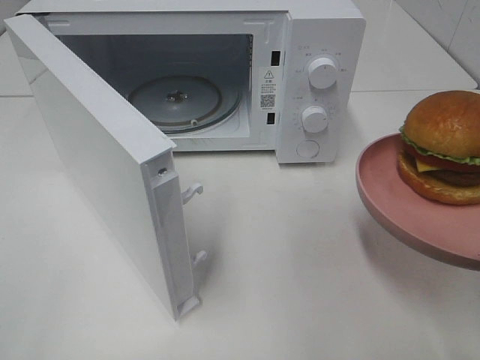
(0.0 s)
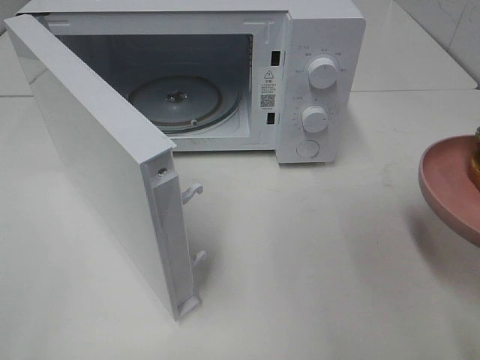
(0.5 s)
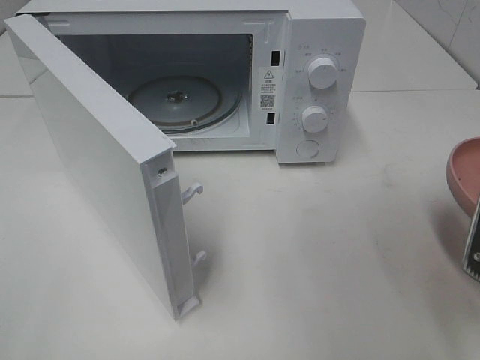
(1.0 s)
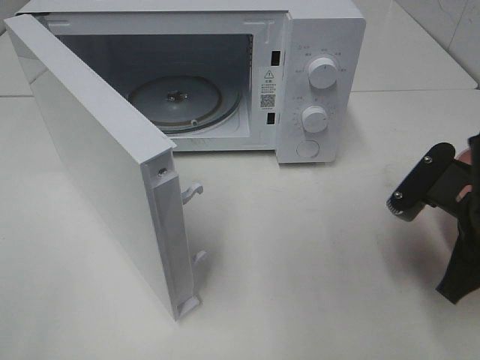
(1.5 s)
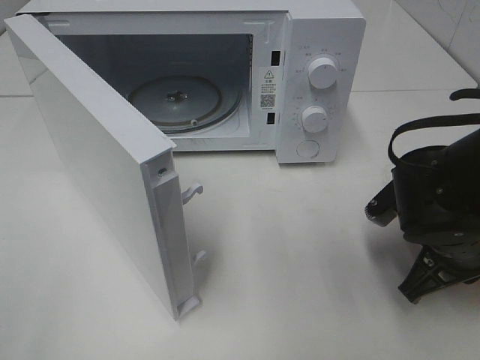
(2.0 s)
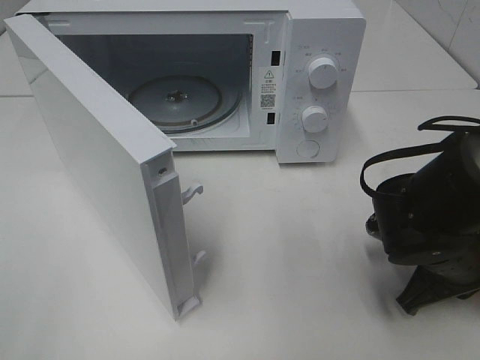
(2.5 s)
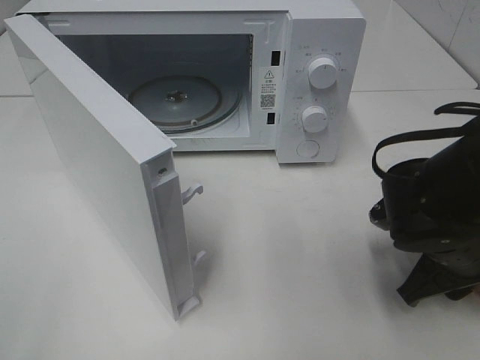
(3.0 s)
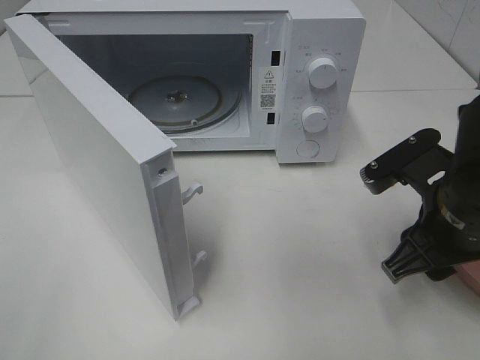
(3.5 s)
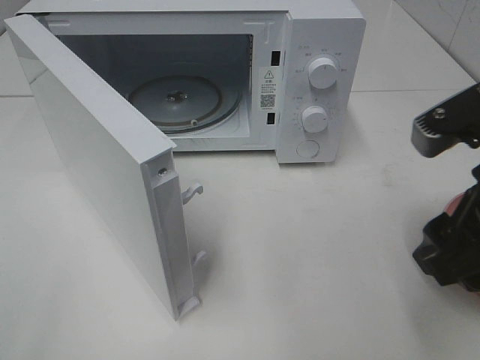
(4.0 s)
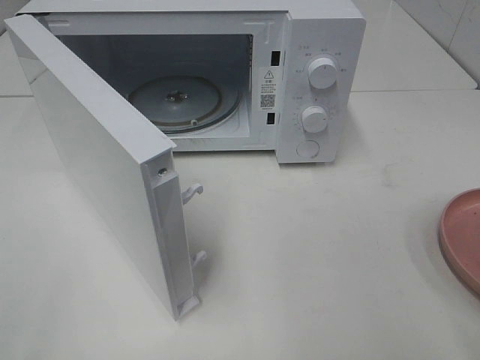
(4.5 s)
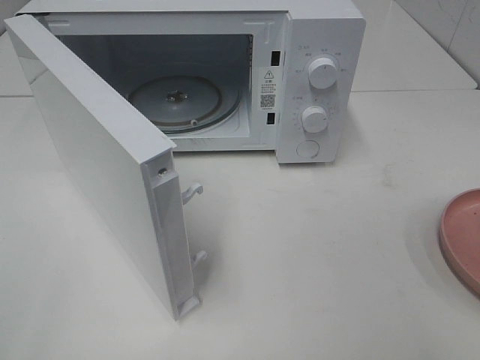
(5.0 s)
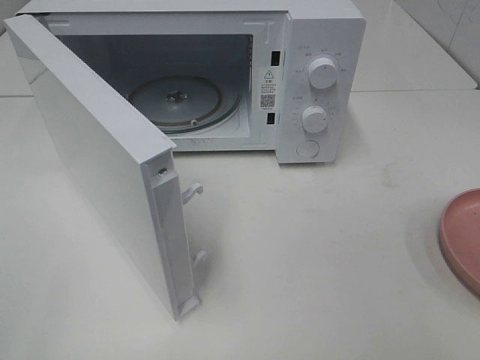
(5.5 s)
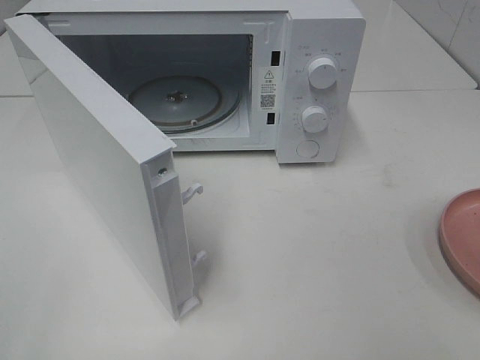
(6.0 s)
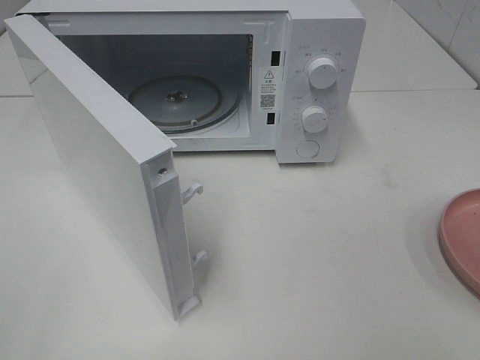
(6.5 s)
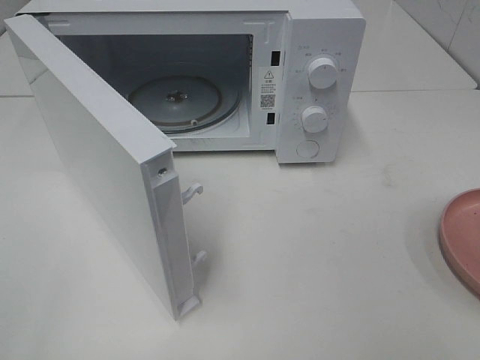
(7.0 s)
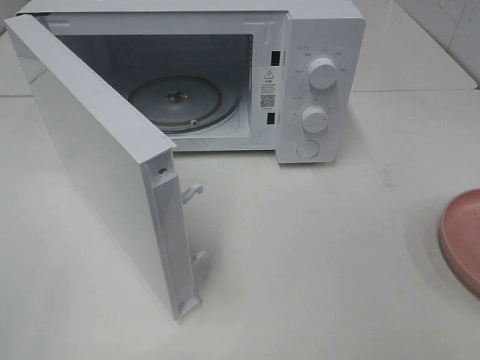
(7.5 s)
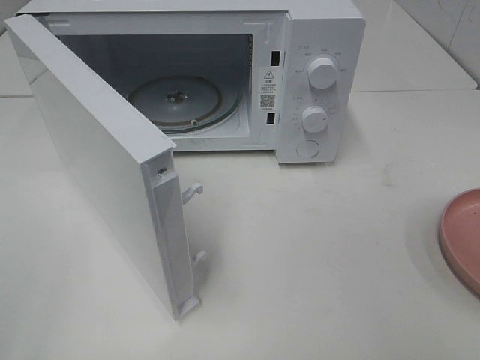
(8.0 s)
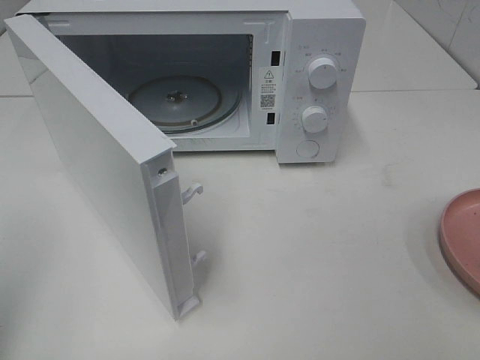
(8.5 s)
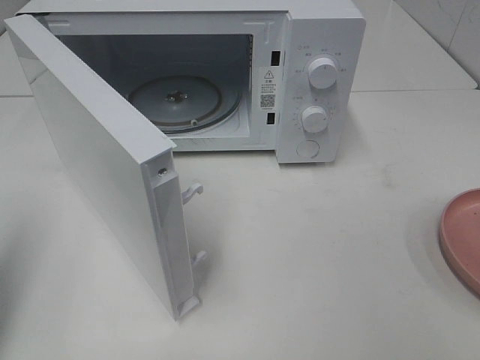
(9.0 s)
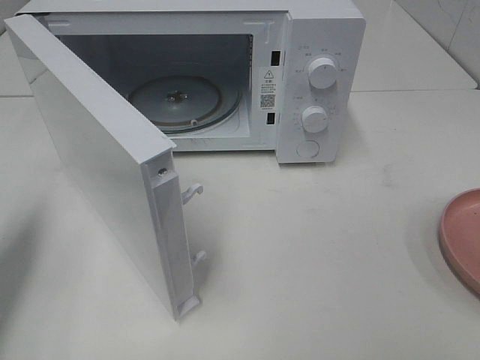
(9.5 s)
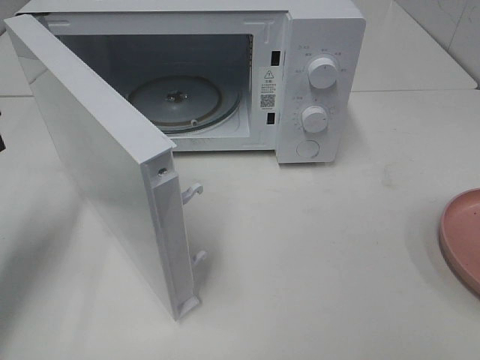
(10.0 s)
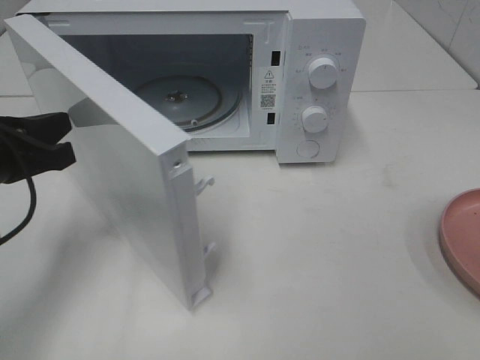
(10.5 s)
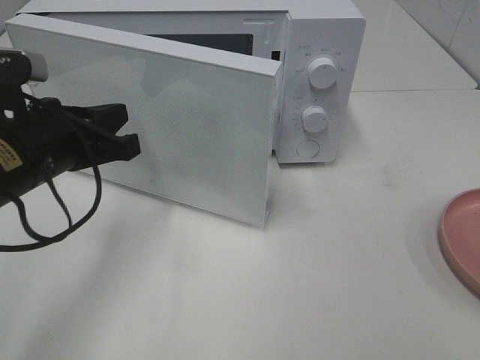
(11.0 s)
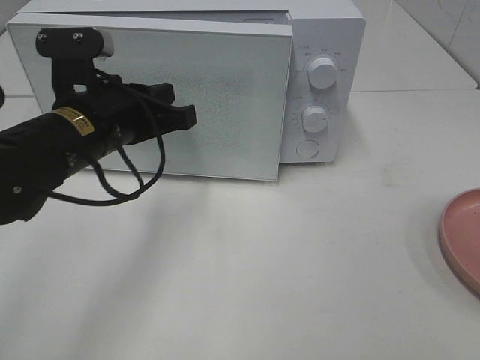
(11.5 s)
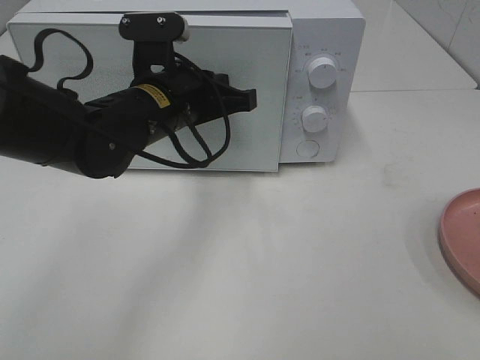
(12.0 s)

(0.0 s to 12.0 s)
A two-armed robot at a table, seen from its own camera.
Task of the whole recording: Heat the burger.
Step, 0.0 s - 3.0 s: Right hand: place the plate on the table.
0.0 s - 2.0 s: The right gripper moves forward and downward, about 15 cm.
2.0 s - 4.0 s: The right gripper shifts about 15 cm upward and backward, and opens.
4.0 s - 6.0 s: The right gripper moves backward and to the right, approximately 20 cm.
8.0 s - 10.0 s: The left gripper moves forward and downward, roughly 25 cm, and closes up.
10.0 s - 12.0 s: The left gripper goes about 25 cm to the right and forward.

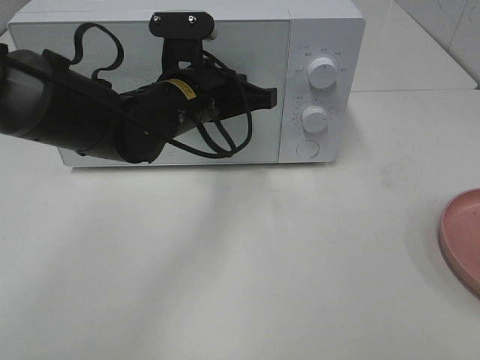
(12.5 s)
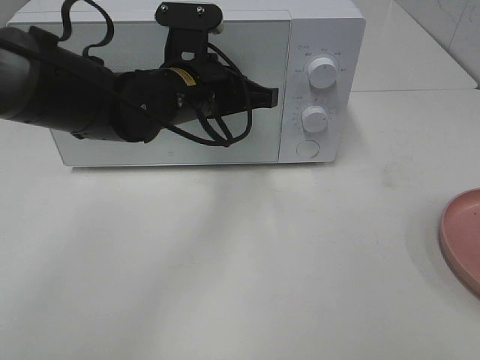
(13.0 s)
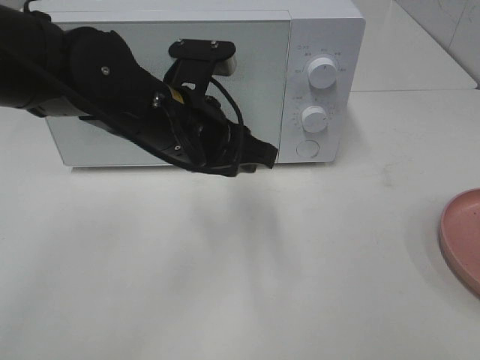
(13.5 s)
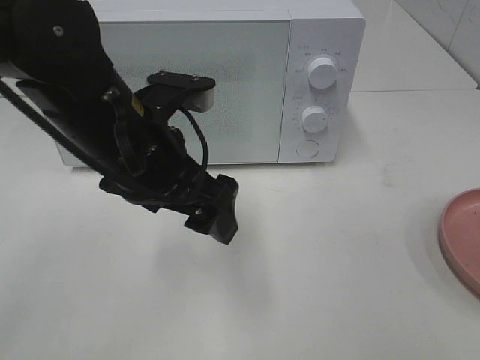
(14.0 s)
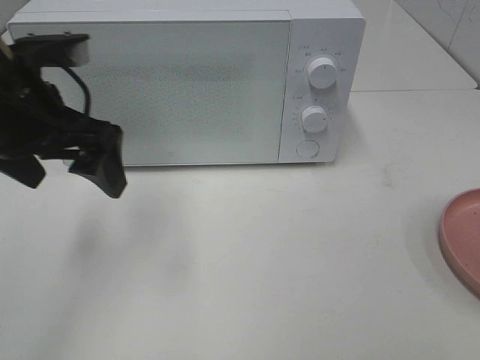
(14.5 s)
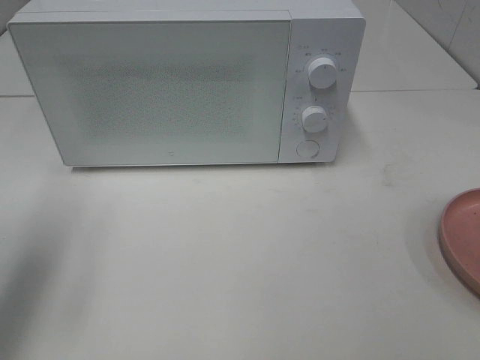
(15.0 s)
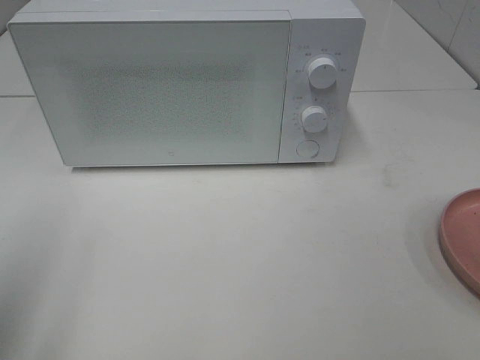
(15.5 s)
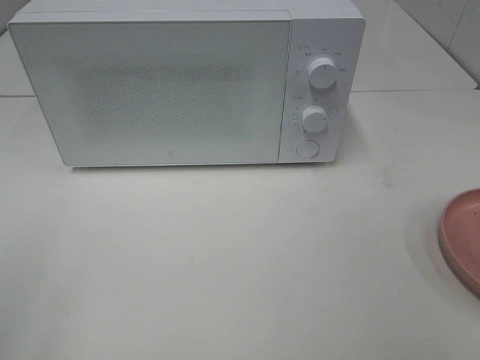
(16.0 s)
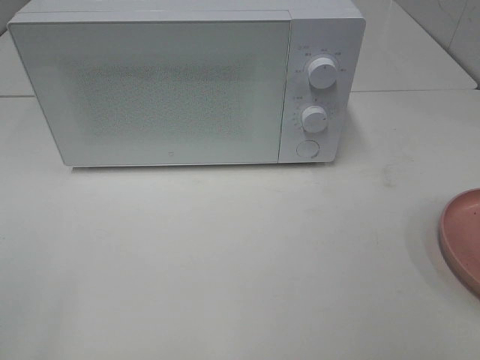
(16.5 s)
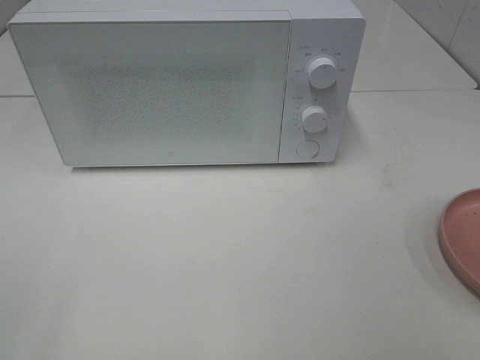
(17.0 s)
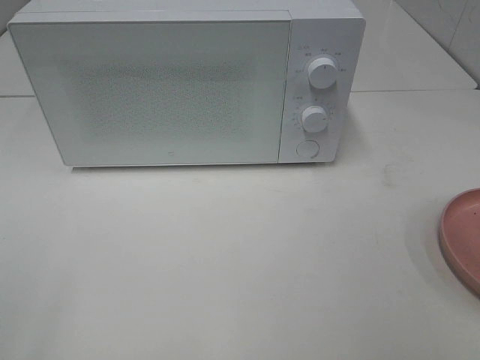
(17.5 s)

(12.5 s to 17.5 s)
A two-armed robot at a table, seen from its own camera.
Task of the whole recording: Heat the burger.
12.5 s - 15.0 s: The left gripper heads to the left and backward, covering about 30 cm, and opens its fingers.
15.0 s - 17.5 s: The left gripper moves backward, approximately 20 cm.

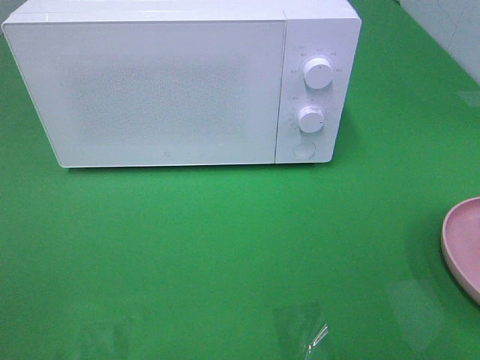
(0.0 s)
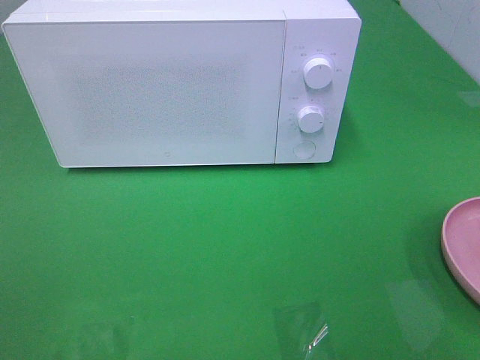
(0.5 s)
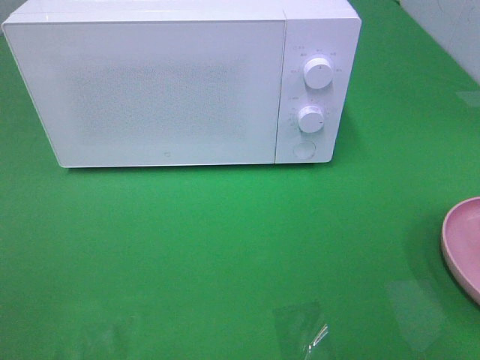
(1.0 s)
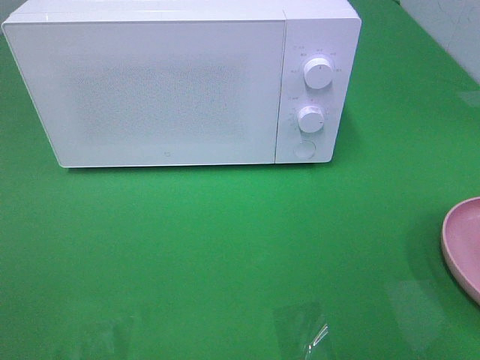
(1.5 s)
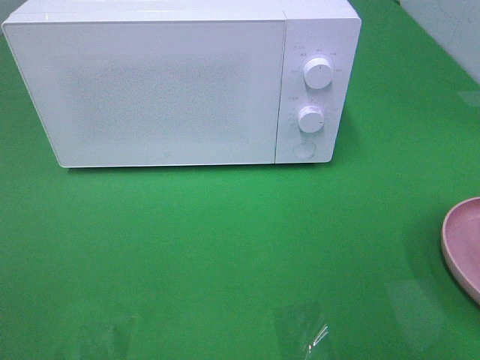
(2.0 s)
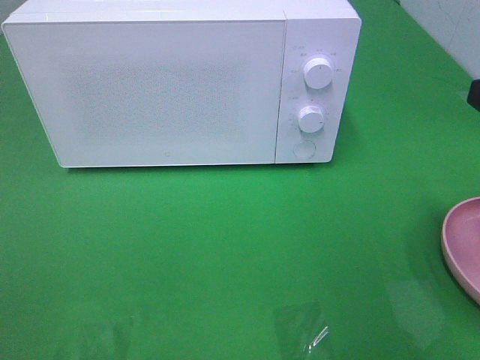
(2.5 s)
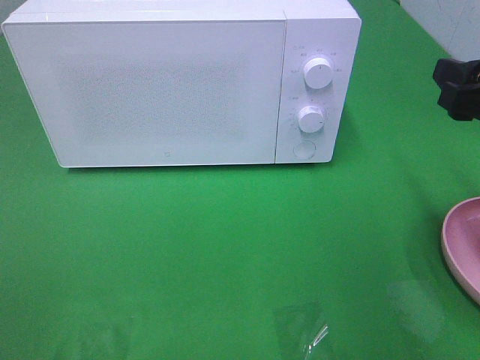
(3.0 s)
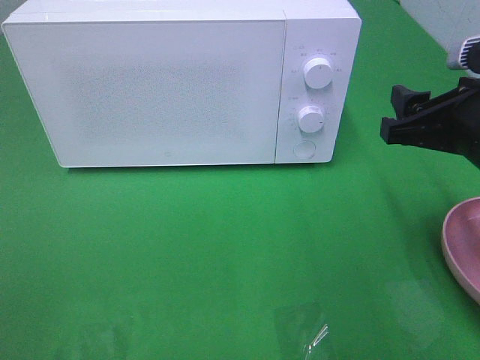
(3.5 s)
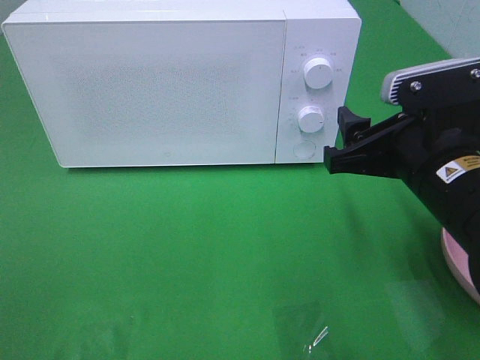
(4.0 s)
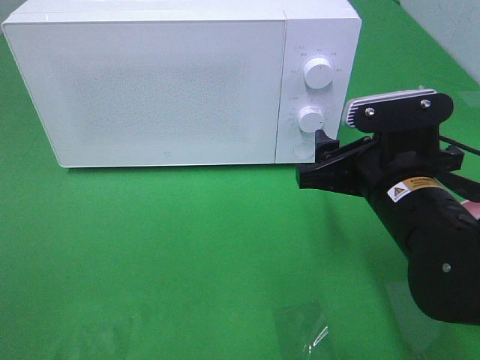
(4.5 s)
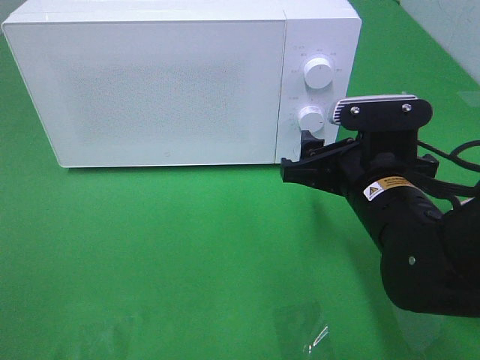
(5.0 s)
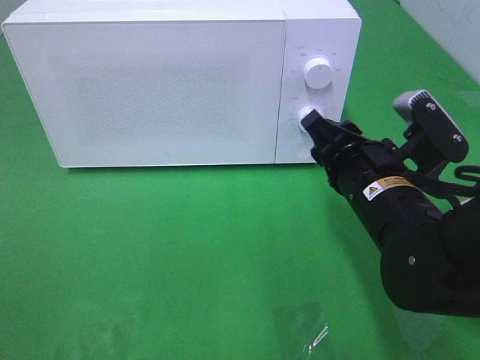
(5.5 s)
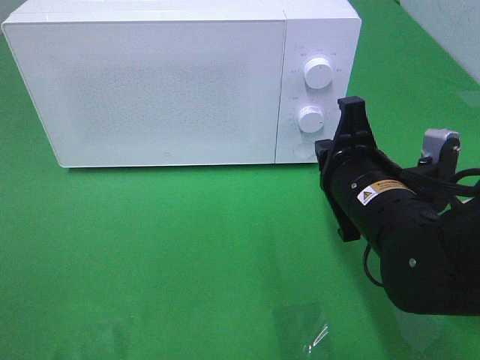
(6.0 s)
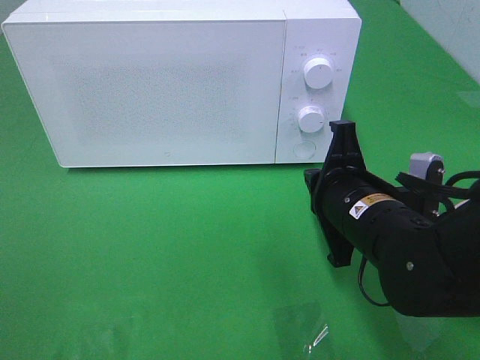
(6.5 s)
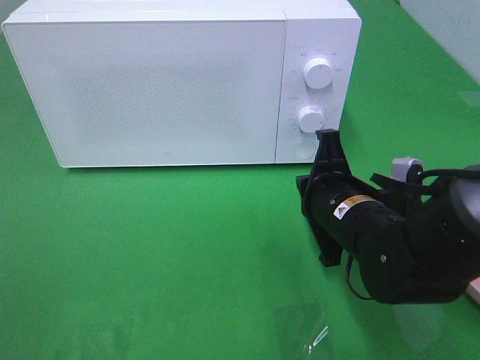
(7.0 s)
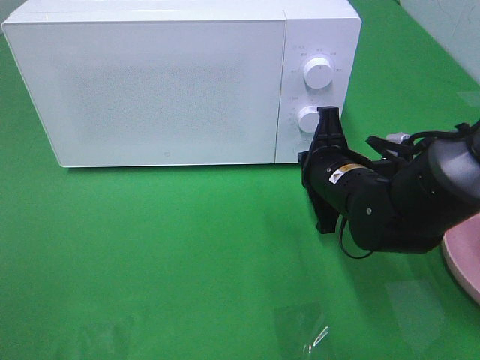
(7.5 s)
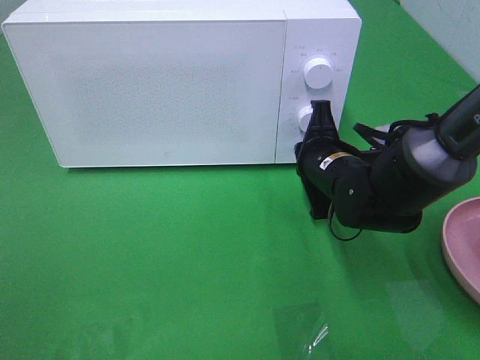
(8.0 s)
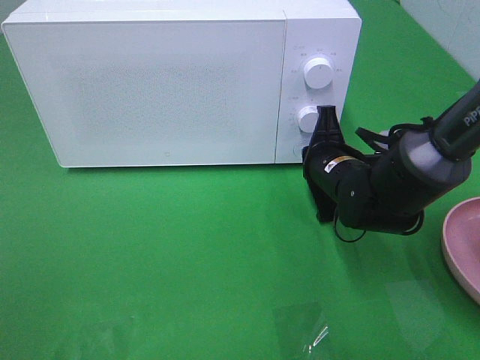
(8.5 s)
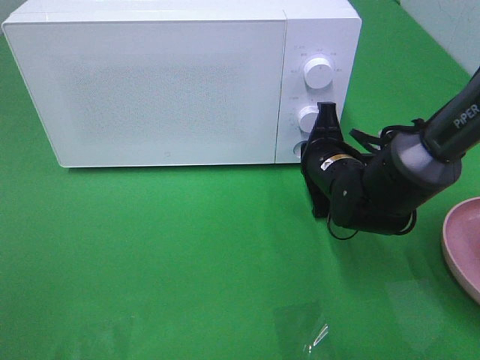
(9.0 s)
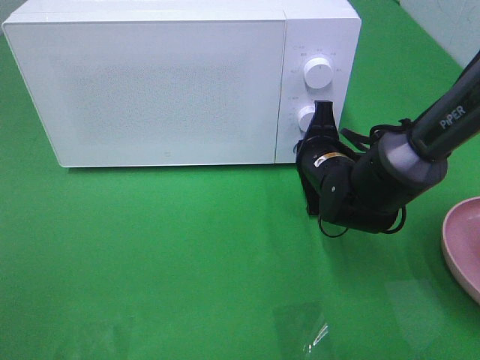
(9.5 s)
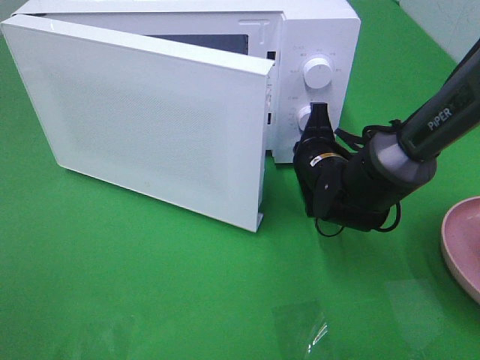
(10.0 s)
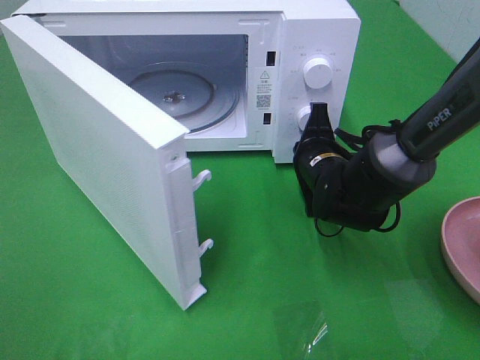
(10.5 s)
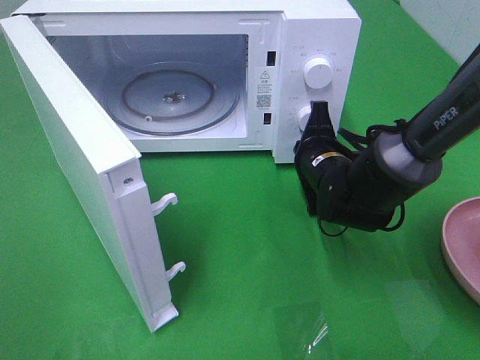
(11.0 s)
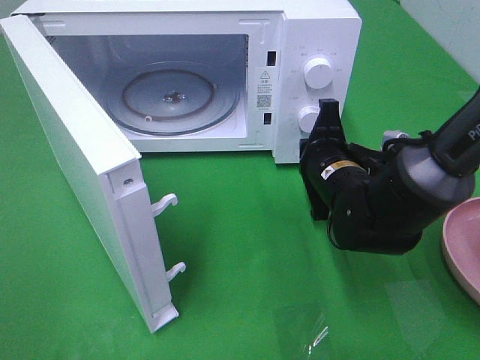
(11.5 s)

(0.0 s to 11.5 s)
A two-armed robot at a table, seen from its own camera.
Task of the whole recording: Heat the burger.
Step, 0.0 s - 11.0 s: Right hand: press the switch.
2.0 s - 4.0 s: The right gripper shifts about 20 cm downward, to the left and forward.
4.0 s - 6.0 s: The right gripper moves about 5 cm, and closes.
6.0 s - 7.5 s: The right gripper goes roughly 5 cm forward.
7.5 s - 9.5 s: The right gripper shifts some 5 cm forward.
